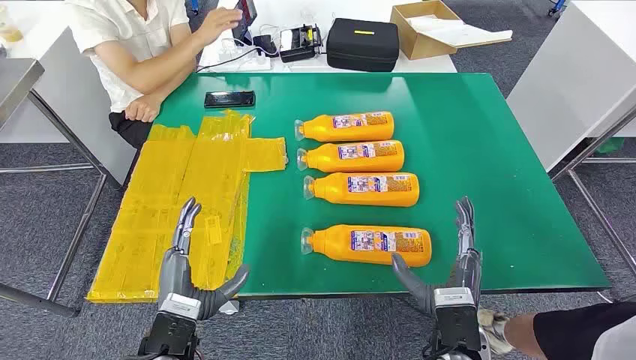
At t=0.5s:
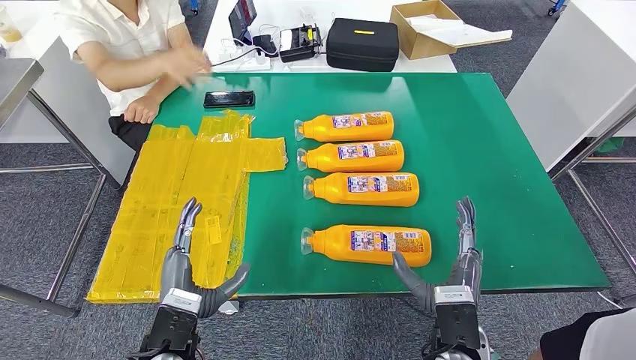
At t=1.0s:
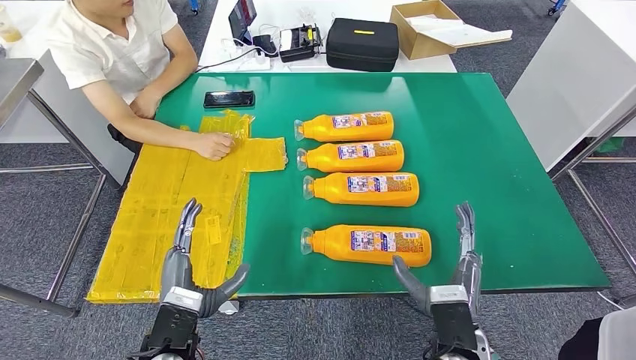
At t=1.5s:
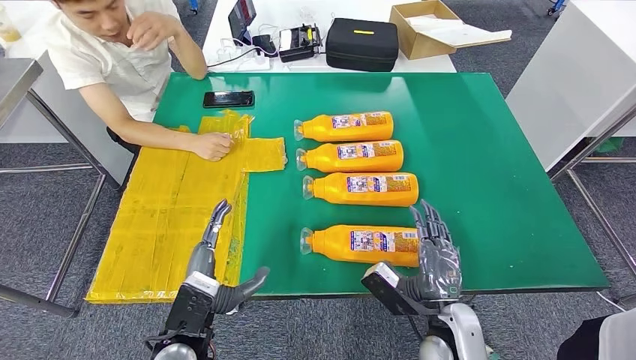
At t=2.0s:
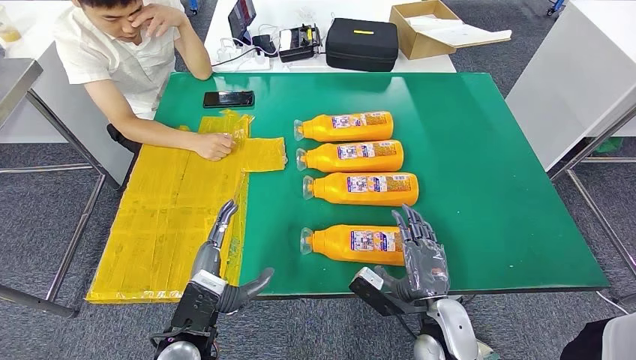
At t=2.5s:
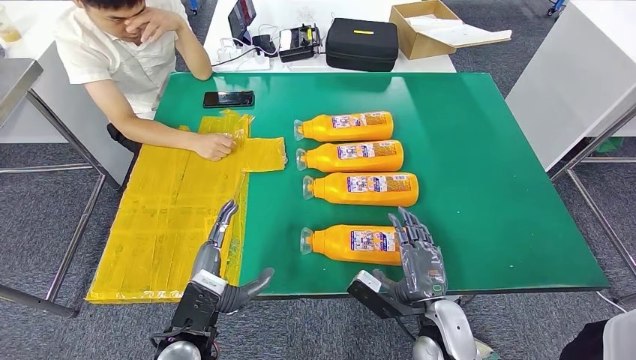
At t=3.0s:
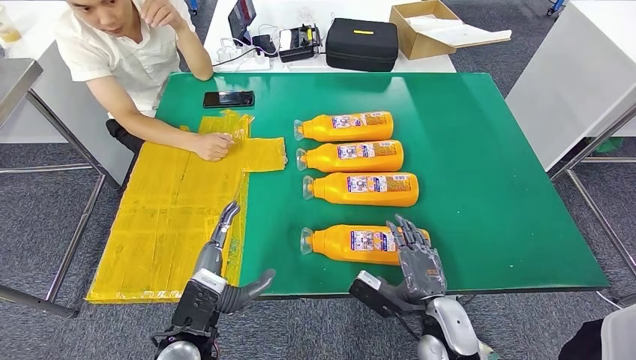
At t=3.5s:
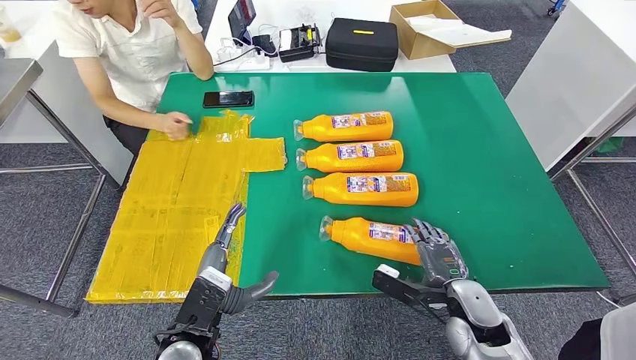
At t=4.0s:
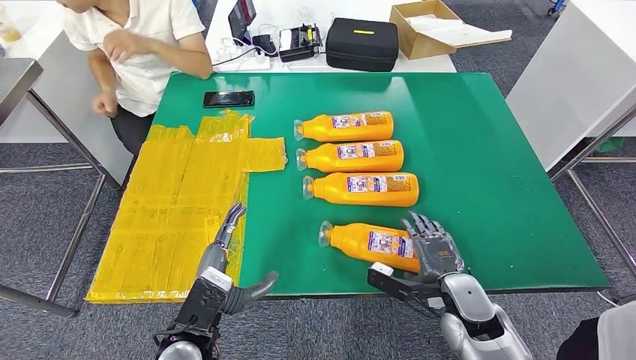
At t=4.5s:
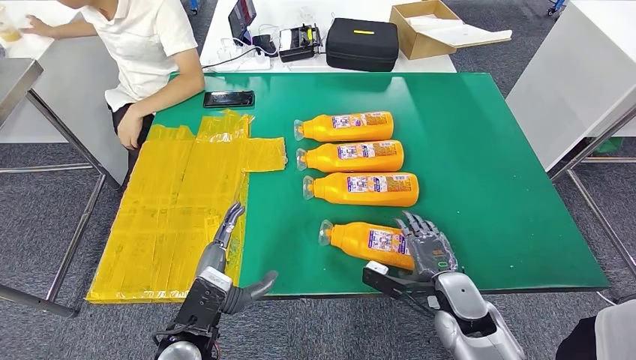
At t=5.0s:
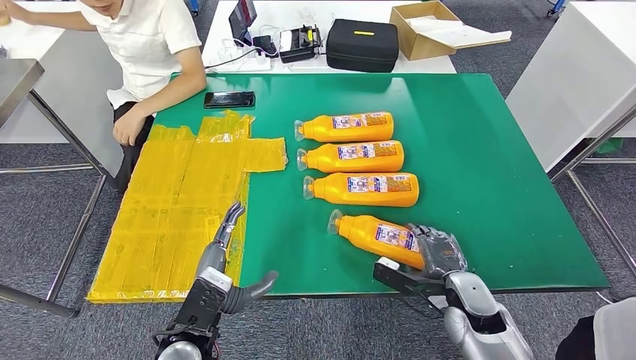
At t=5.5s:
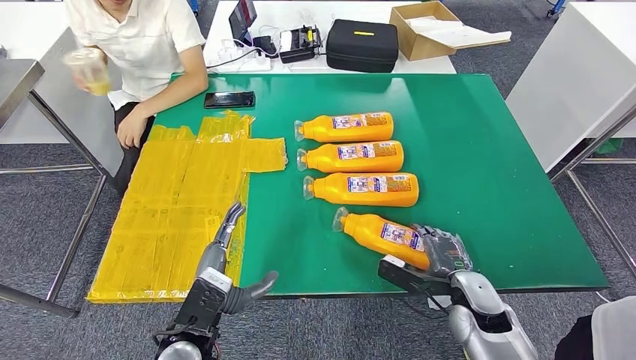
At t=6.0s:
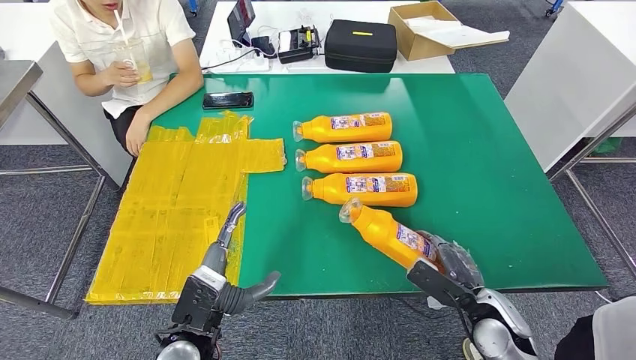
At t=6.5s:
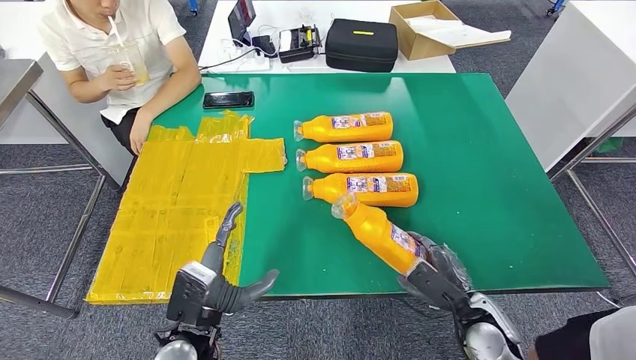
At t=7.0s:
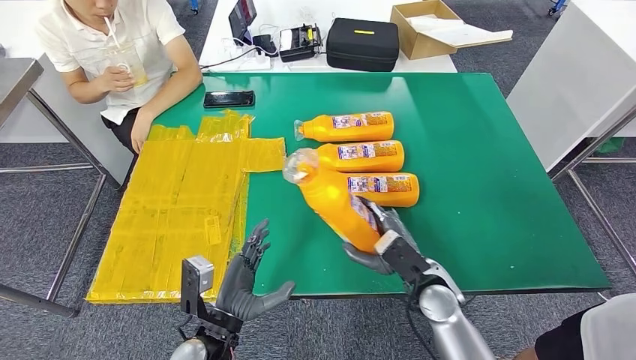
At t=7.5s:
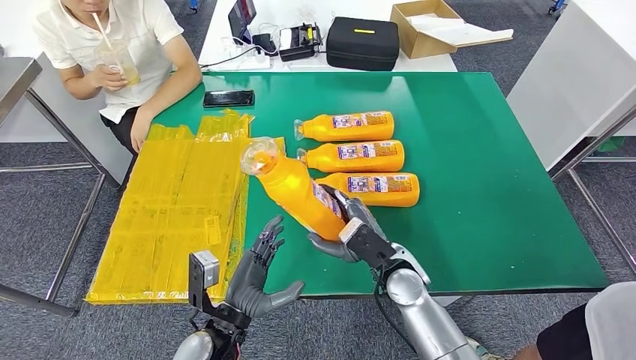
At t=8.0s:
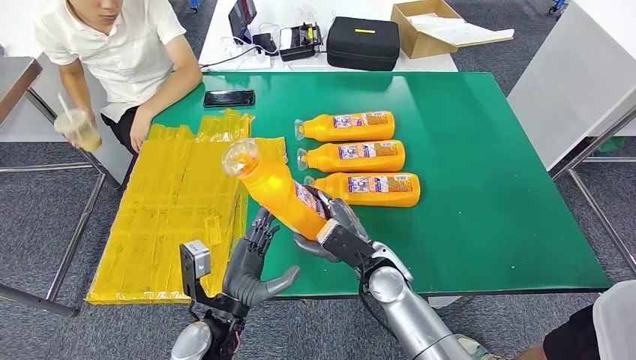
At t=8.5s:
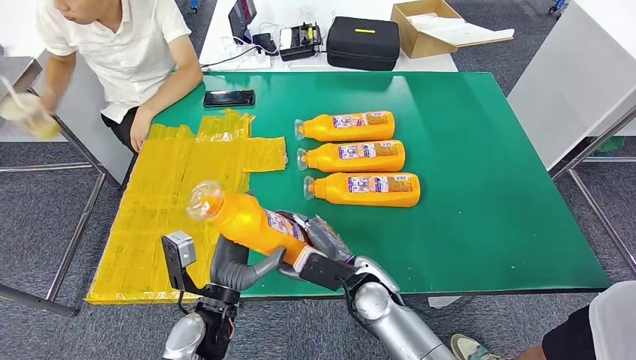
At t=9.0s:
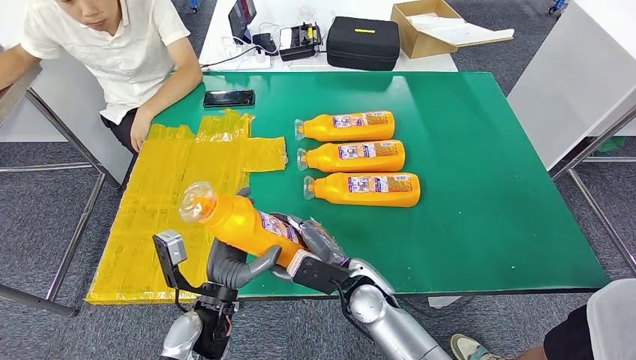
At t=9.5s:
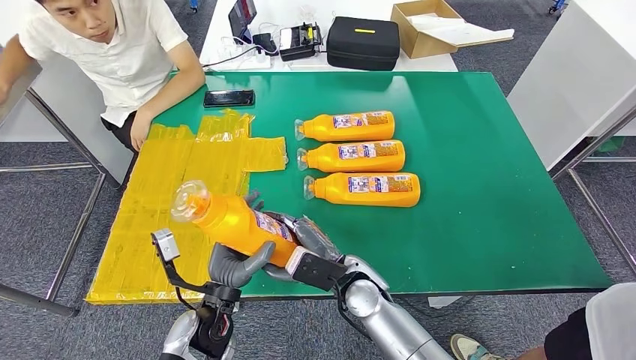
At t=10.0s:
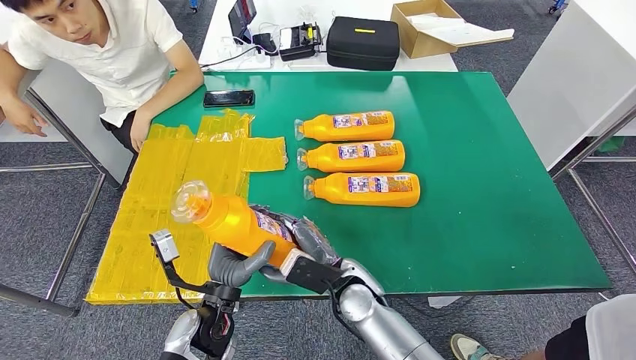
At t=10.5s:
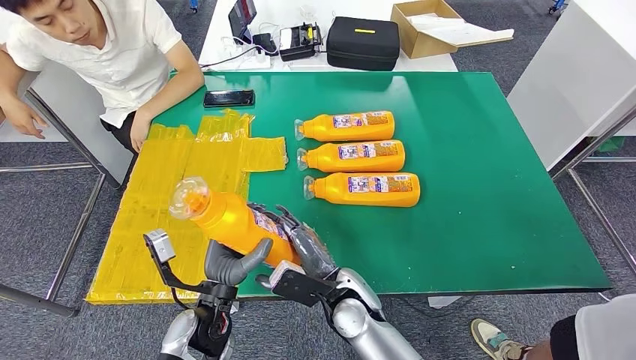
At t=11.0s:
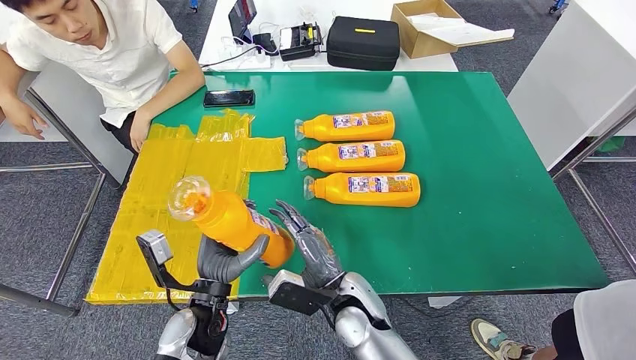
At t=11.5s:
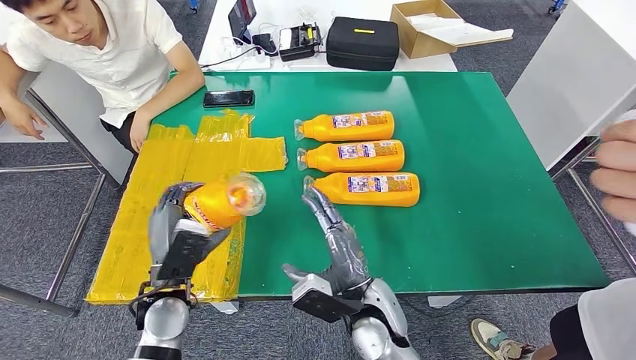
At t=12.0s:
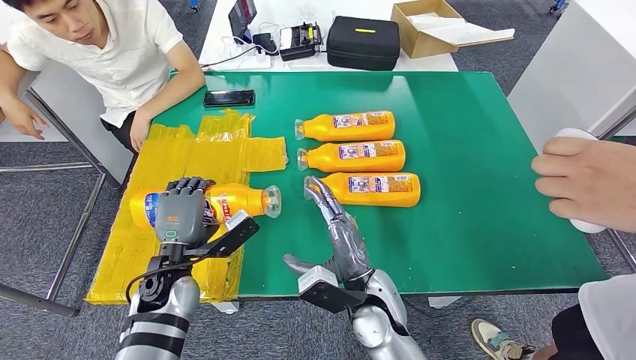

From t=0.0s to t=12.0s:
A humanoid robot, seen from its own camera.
Step, from t=0.0s to t=8.0s: Take the fast-moving consumer goods bottle from the table.
From t=2.0s to t=4.0s: The right hand moves to the right, roughly 5 cm.
From t=4.0s to t=6.0s: The right hand ends up some 5 cm from where it was.
From t=8.0s to t=10.0s: The right hand moves some 5 cm.
From t=10.0s to t=12.0s: The left hand is displaced to the left and forward by roughly 10 cm.

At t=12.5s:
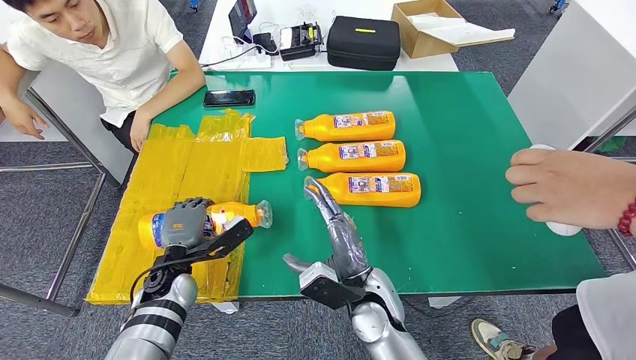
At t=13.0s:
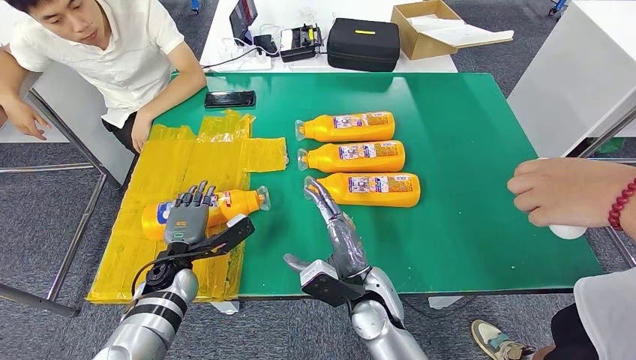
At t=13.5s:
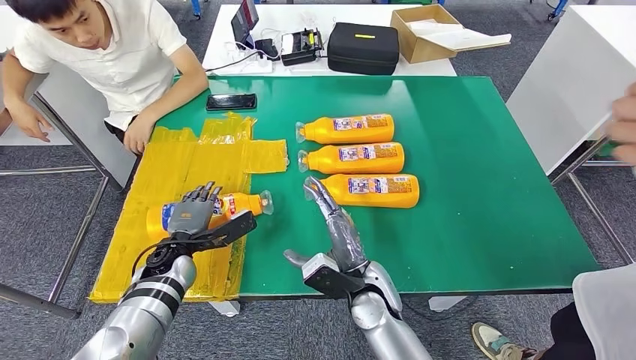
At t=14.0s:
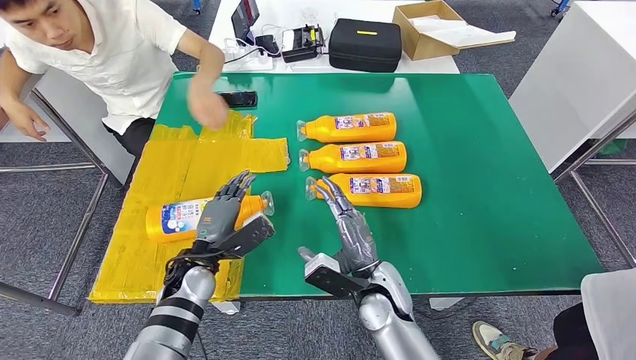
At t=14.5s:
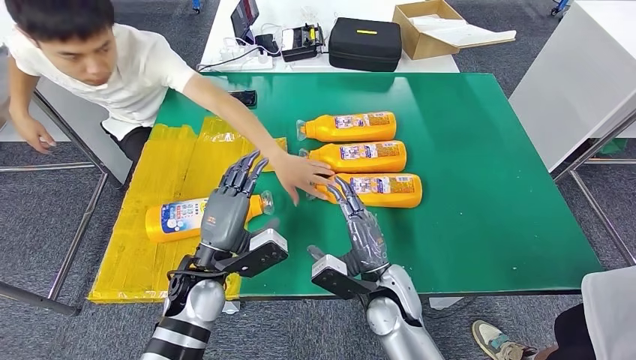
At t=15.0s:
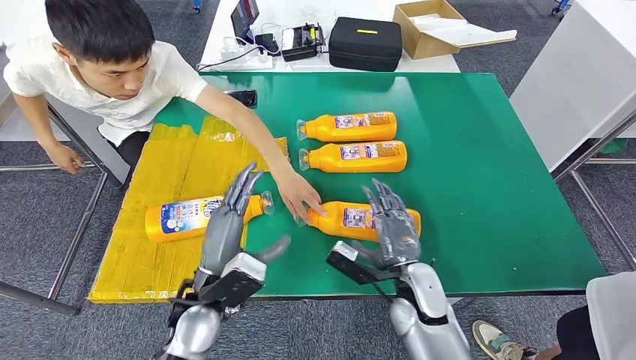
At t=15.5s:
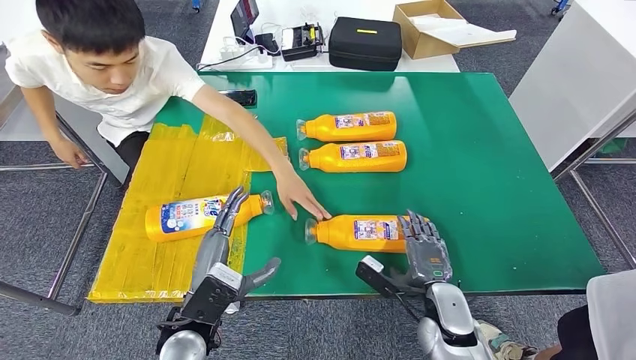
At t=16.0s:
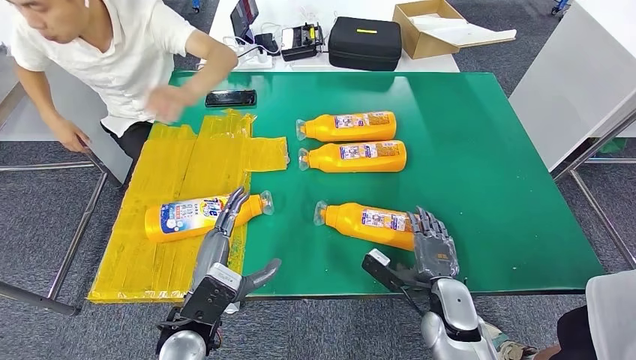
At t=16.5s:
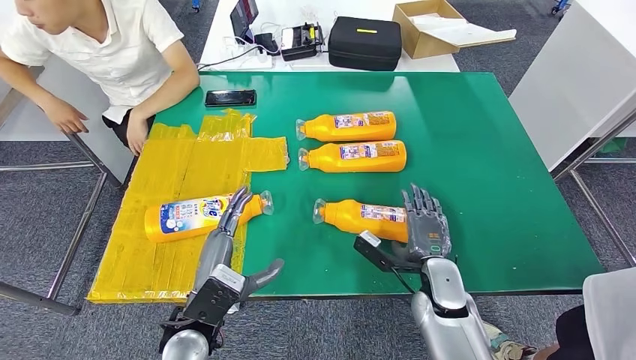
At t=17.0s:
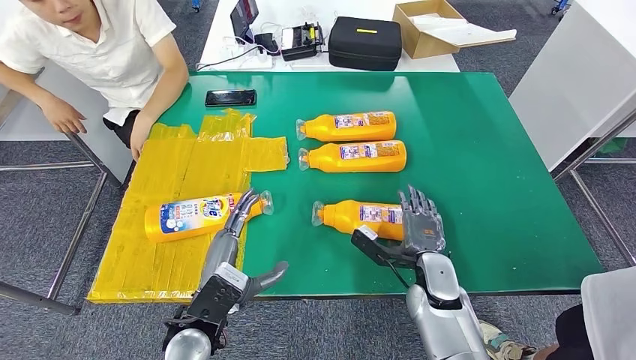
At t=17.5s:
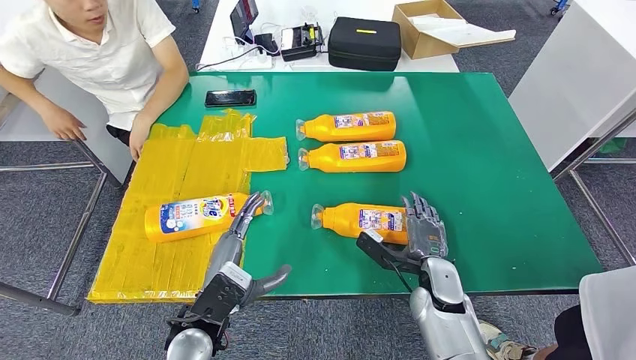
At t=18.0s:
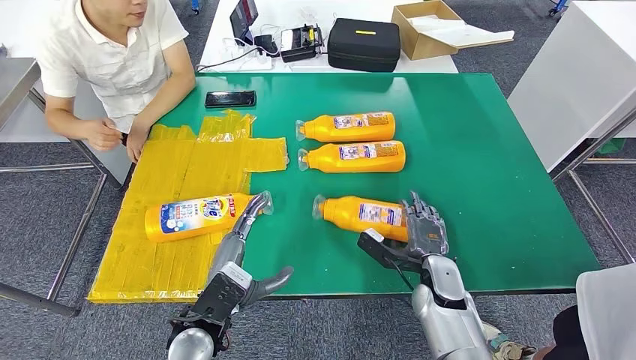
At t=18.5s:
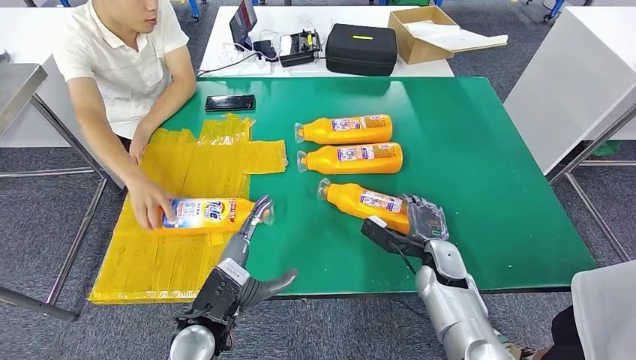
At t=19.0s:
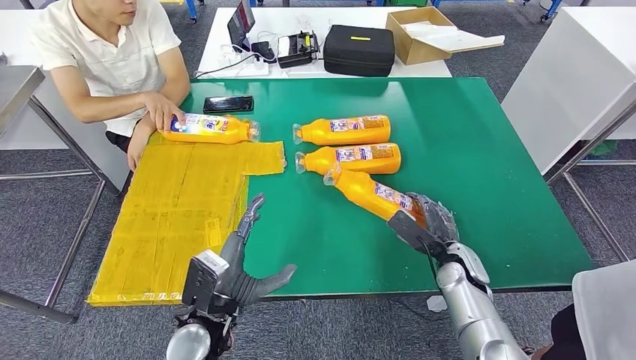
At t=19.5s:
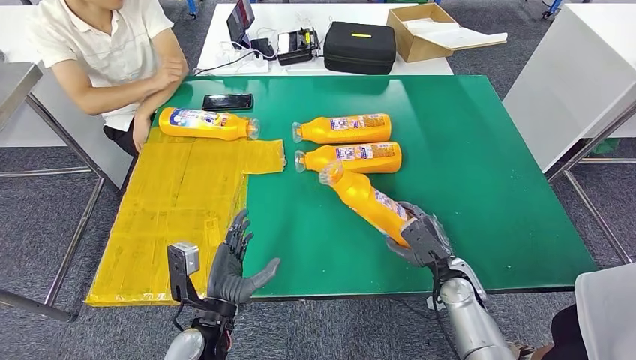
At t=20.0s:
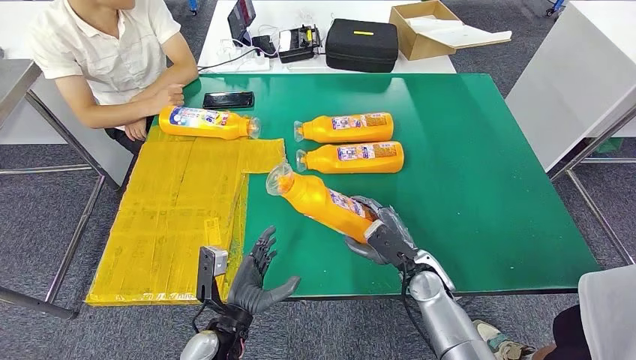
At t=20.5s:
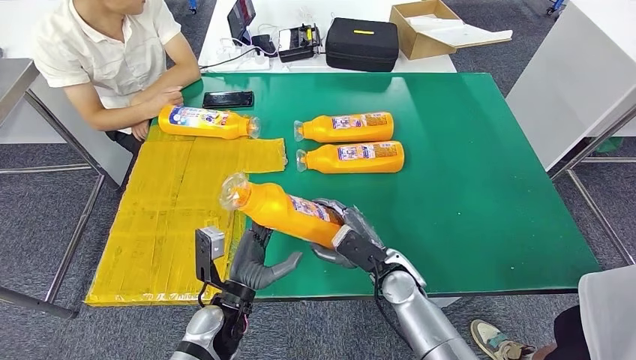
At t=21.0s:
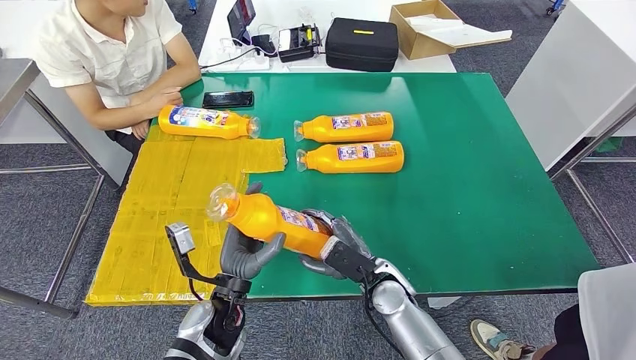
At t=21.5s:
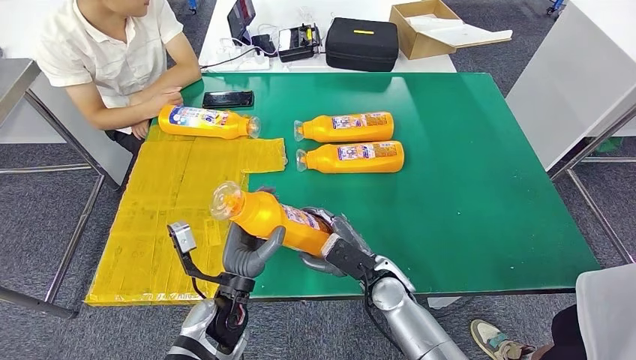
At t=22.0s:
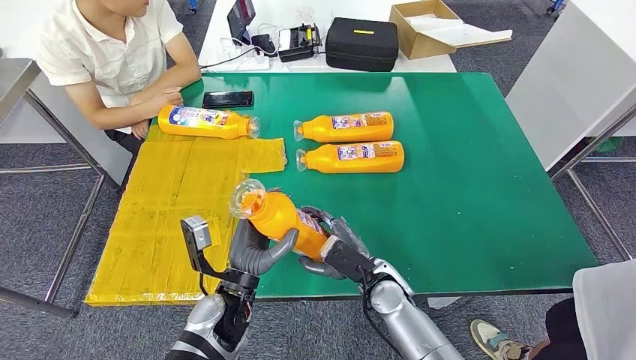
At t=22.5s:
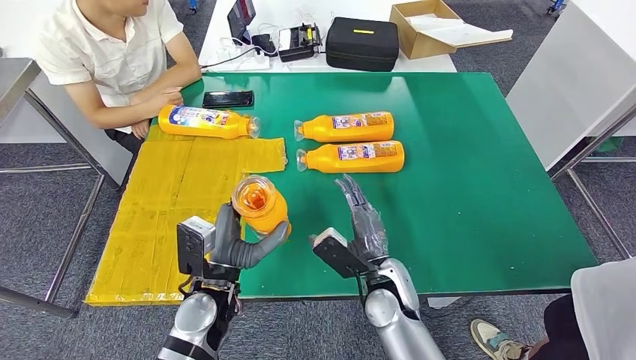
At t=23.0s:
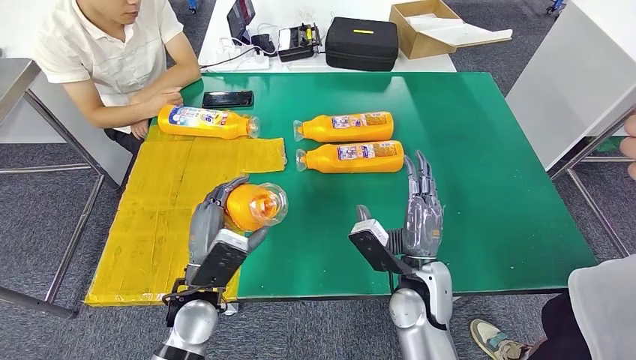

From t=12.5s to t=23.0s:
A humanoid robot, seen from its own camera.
Step, from t=12.5s to t=14.5s: Flip the fast-moving consumer goods bottle to the front side.
Step, from t=15.0s to t=21.5s: Pick up the fast-moving consumer goods bottle from the table.
From t=21.0s to t=23.0s: The left hand changes place by about 5 cm; the right hand travels upward by roughly 5 cm.
